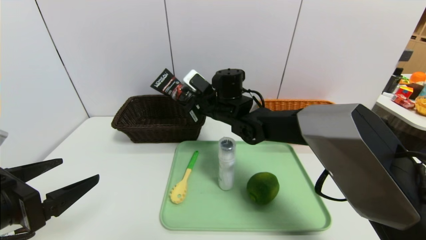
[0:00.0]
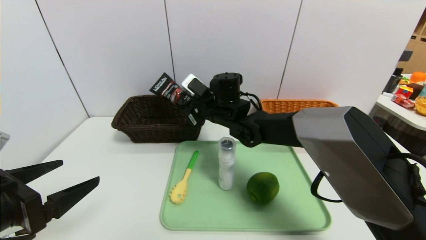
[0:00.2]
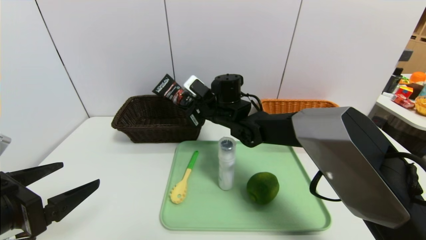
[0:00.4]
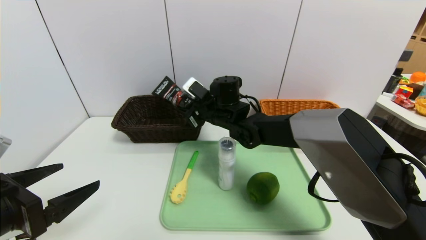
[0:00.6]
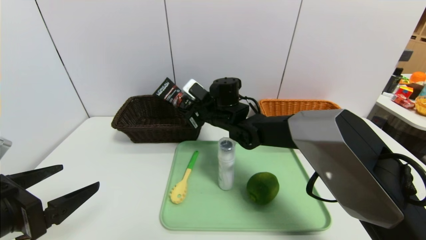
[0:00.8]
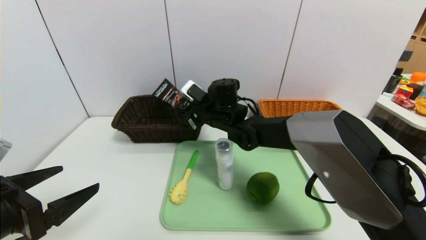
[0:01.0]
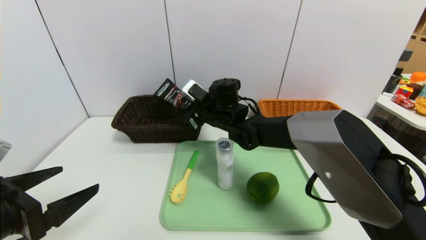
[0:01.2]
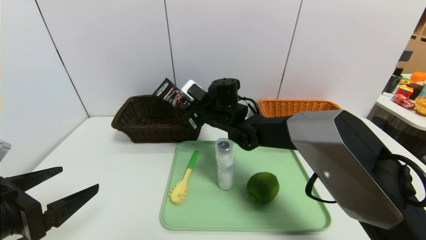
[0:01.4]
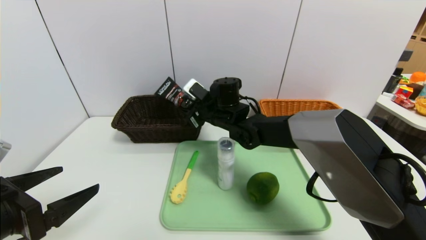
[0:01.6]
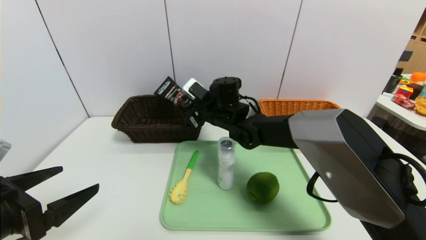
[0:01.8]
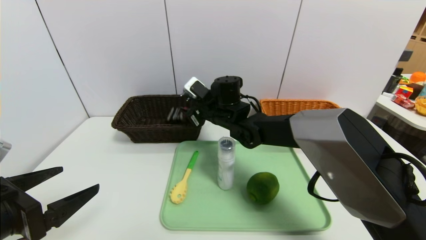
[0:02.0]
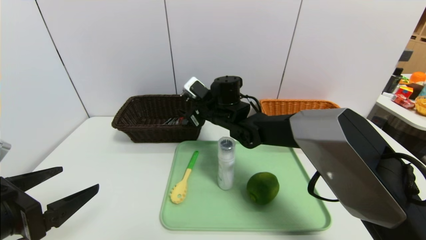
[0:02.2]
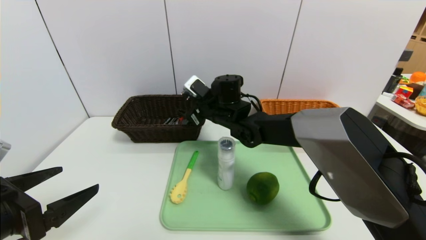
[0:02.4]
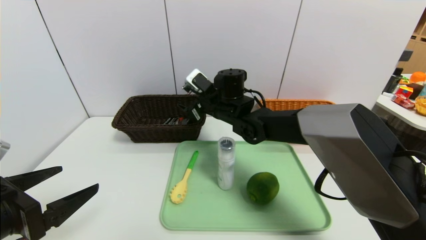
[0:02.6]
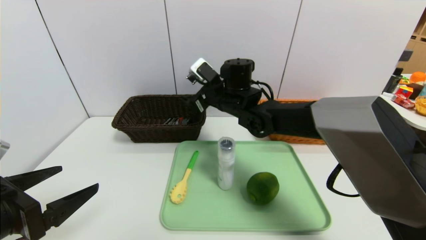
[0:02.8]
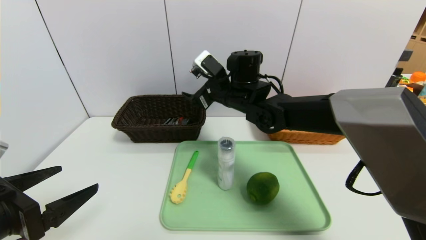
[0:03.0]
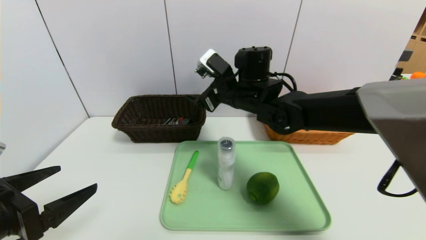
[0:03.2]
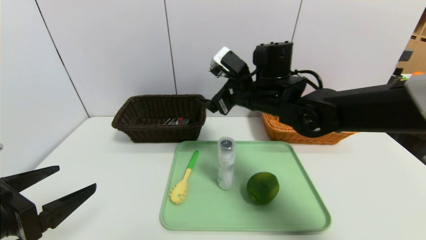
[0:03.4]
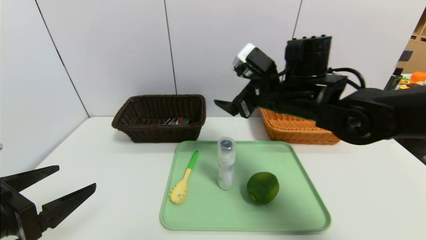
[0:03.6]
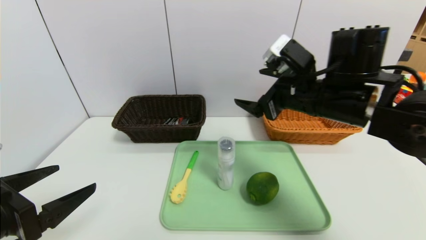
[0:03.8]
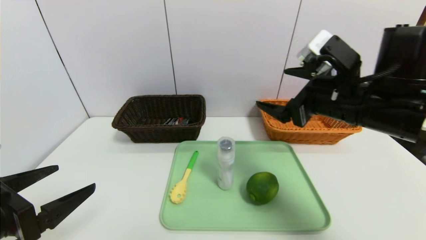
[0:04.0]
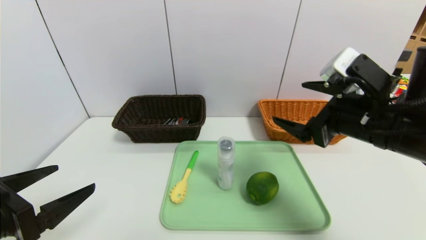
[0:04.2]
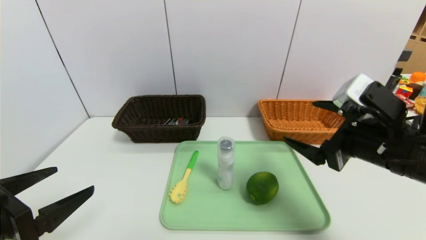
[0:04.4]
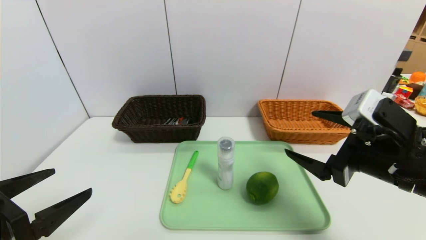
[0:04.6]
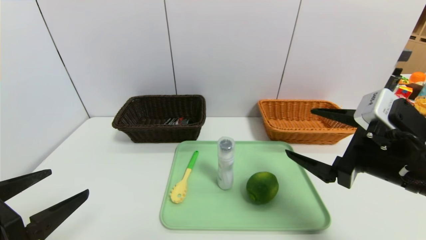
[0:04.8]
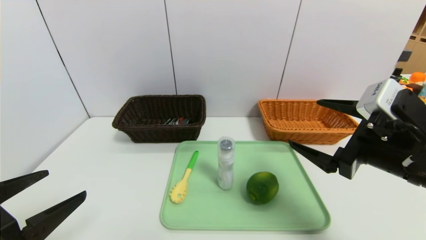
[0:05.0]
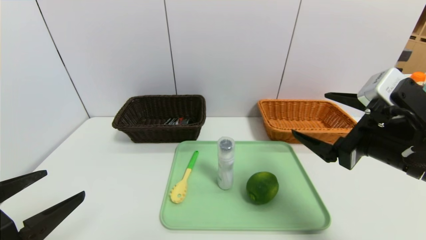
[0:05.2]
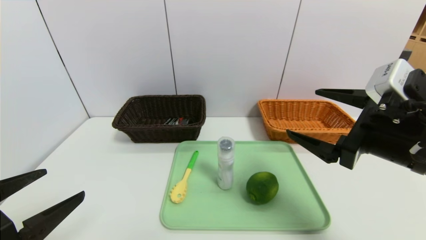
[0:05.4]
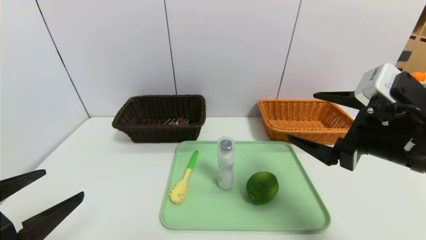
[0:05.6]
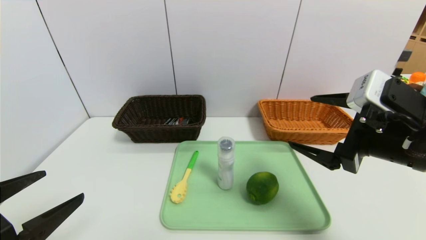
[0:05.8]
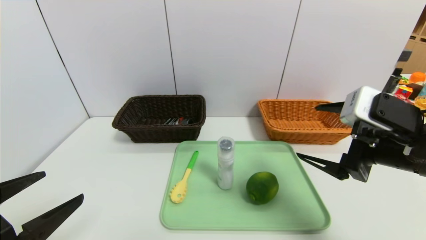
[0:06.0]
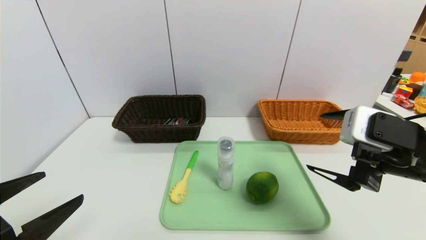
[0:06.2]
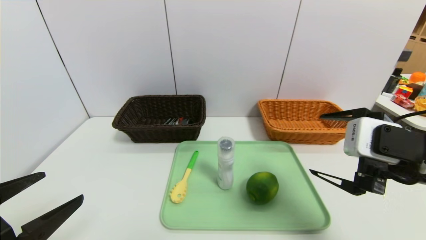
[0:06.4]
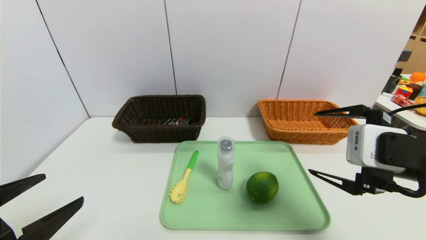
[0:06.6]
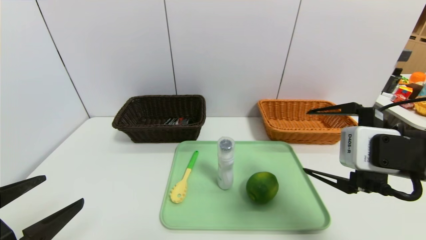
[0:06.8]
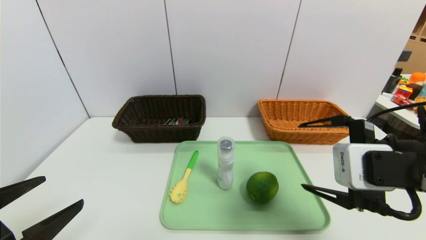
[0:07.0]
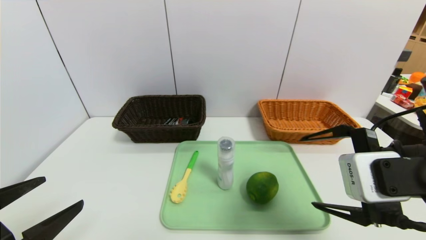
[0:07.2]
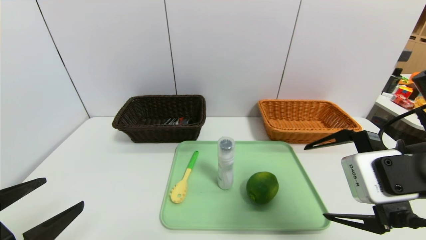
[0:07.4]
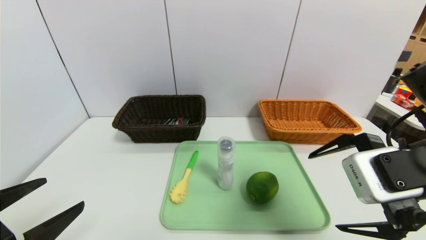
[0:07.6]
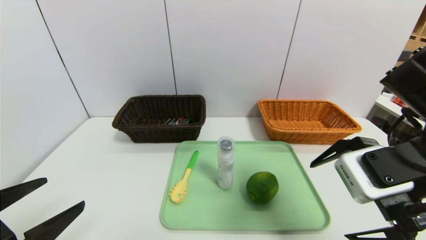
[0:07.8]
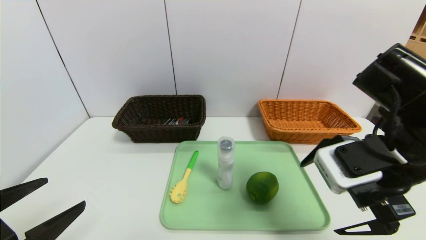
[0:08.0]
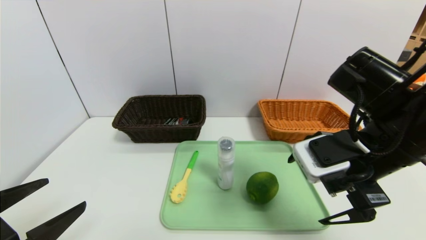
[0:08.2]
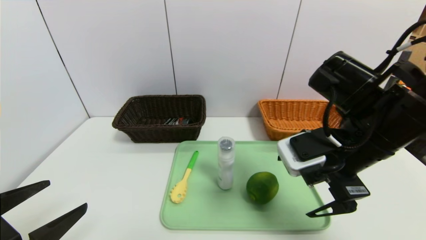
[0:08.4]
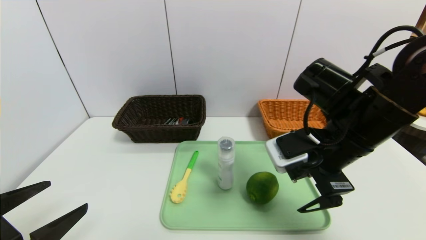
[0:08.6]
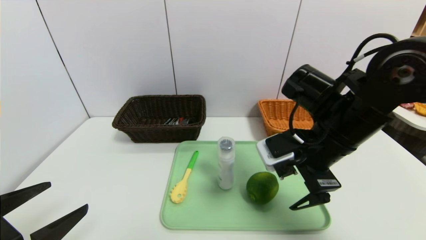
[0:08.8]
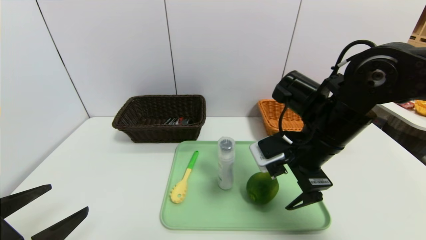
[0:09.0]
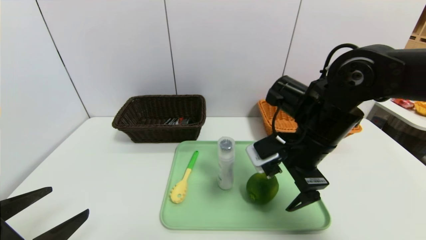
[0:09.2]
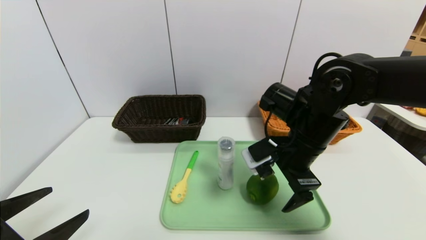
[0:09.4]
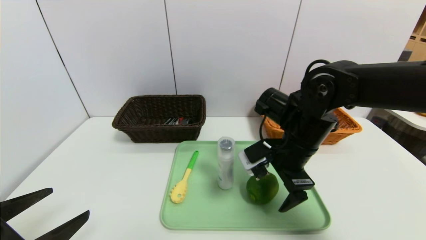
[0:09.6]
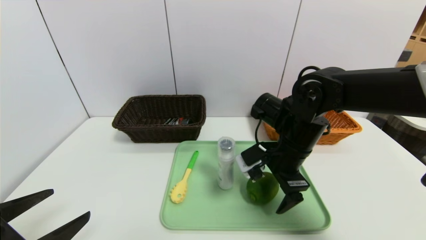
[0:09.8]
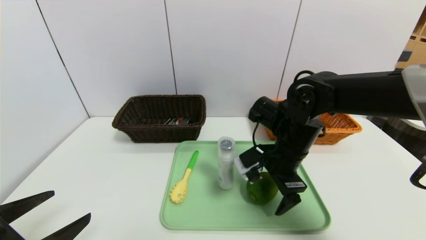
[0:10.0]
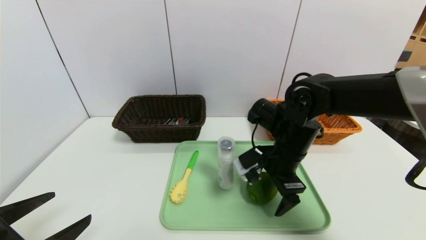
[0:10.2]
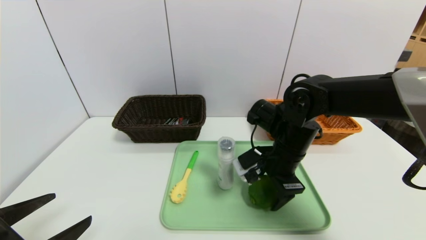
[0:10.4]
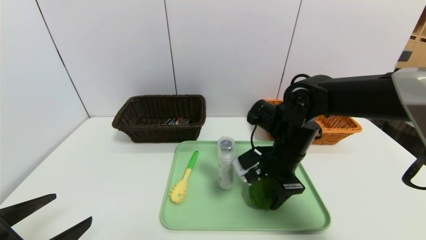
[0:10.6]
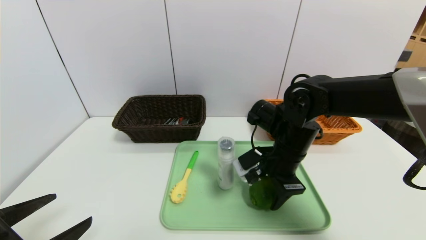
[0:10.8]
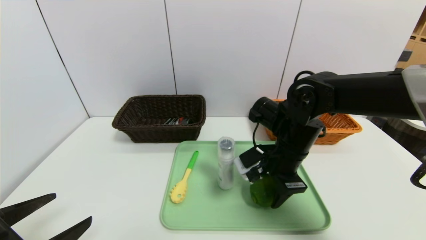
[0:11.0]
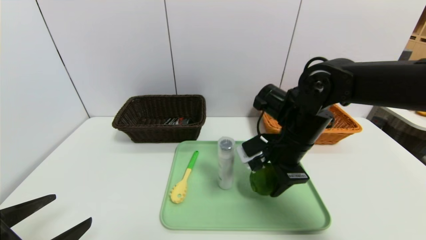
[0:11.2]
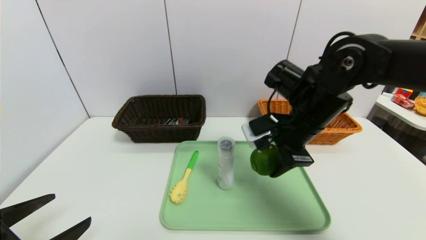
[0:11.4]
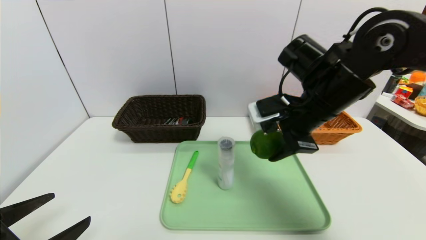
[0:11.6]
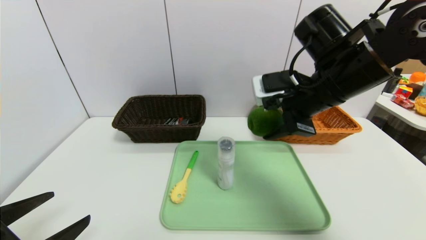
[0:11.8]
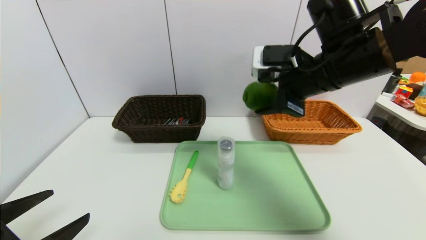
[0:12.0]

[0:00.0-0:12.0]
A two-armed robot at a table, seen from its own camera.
Task of the whole recording: place the food in the right basket with the right gripper, and place the non food items in the left basket with the left gripper.
0:00.0 to 0:01.6: The grippers stay close to where they were, moving slightly.
0:01.6 to 0:03.0: The right gripper moves upward, roughly 5 cm, and opens up.
0:03.0 to 0:04.4: The right gripper travels backward and to the right by approximately 30 cm.
0:04.4 to 0:06.0: The grippers stay close to where they were, moving slightly.
0:07.6 to 0:09.0: The right gripper shifts approximately 10 cm forward and to the left.
0:09.0 to 0:10.4: The right gripper heads downward, covering approximately 5 cm.
0:10.4 to 0:12.0: The right gripper moves upward, approximately 15 cm.

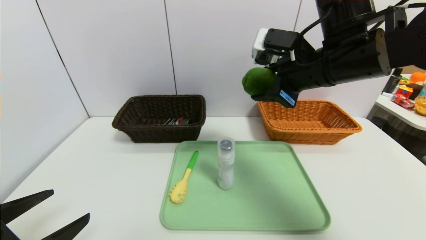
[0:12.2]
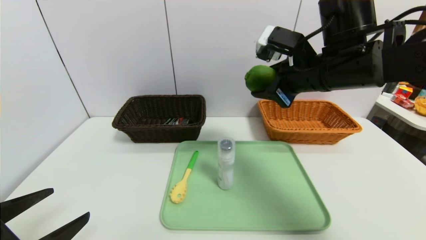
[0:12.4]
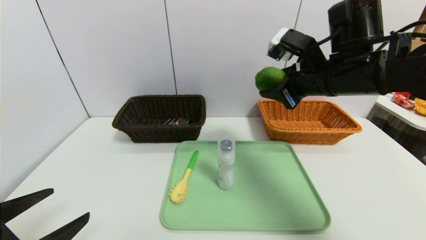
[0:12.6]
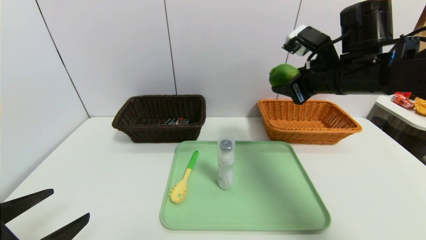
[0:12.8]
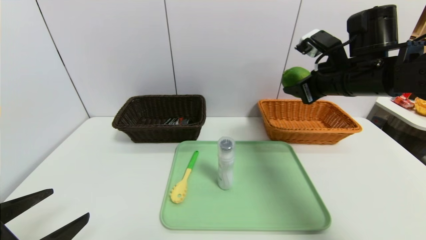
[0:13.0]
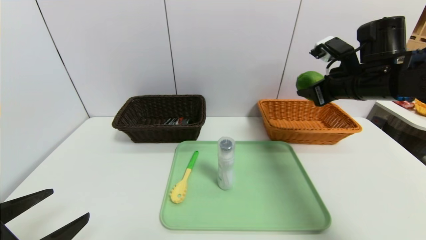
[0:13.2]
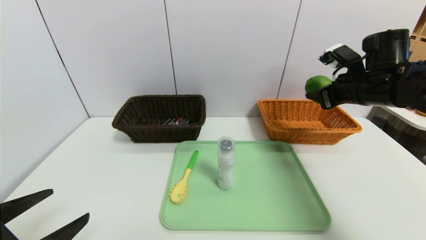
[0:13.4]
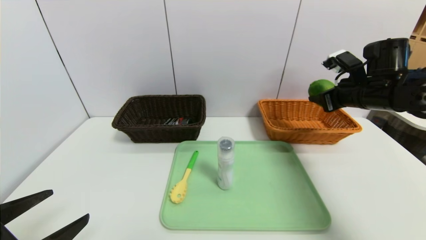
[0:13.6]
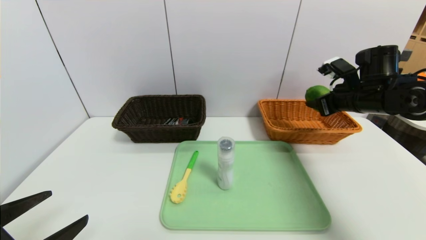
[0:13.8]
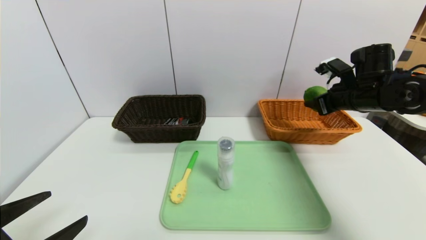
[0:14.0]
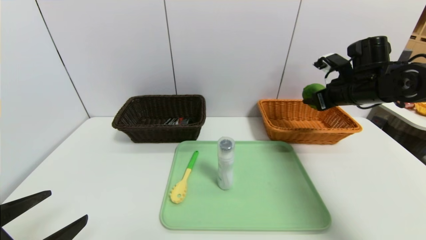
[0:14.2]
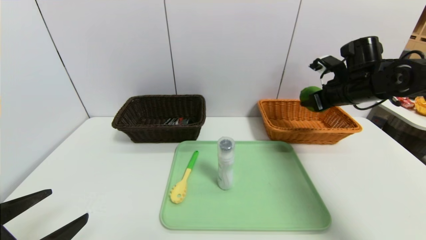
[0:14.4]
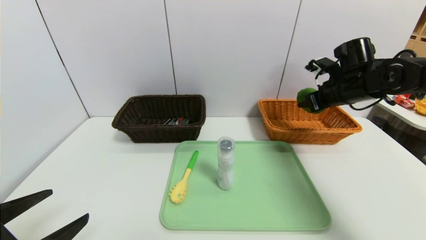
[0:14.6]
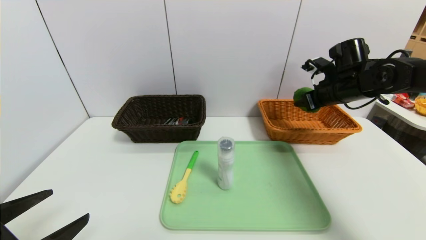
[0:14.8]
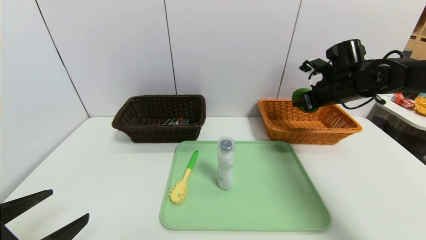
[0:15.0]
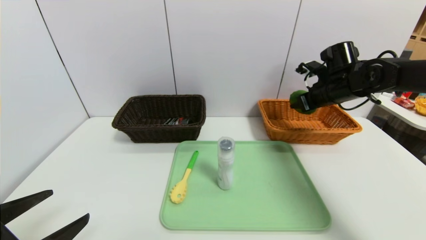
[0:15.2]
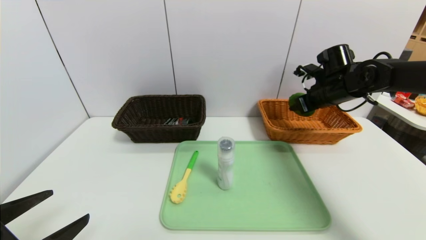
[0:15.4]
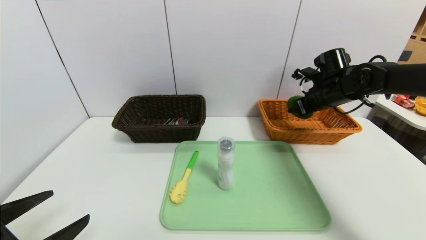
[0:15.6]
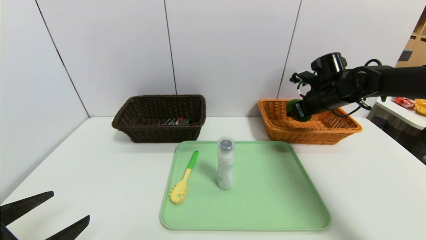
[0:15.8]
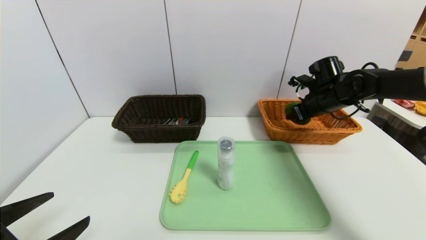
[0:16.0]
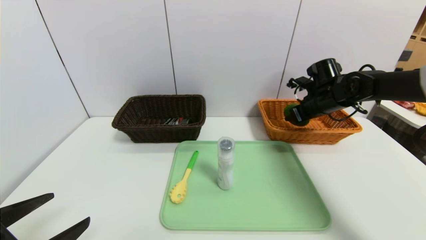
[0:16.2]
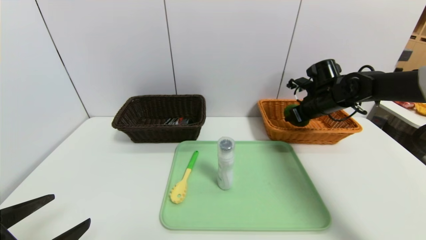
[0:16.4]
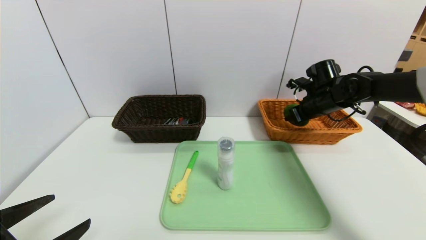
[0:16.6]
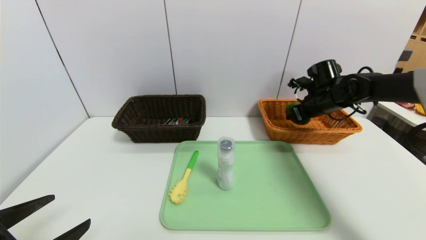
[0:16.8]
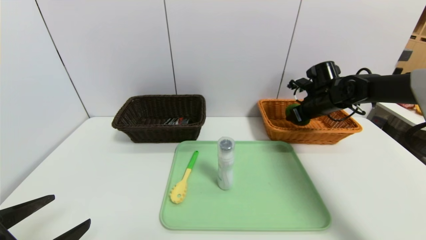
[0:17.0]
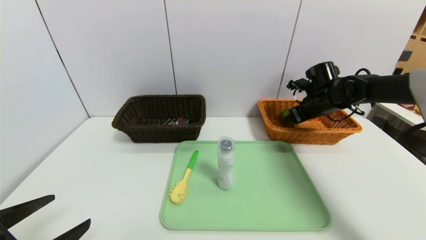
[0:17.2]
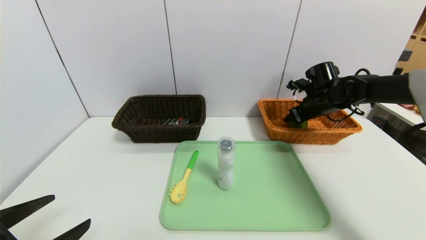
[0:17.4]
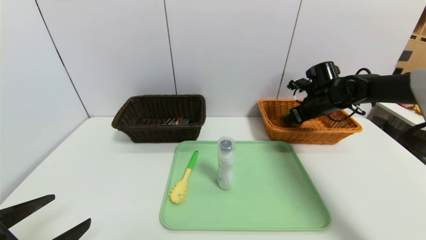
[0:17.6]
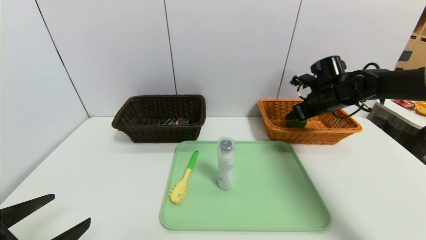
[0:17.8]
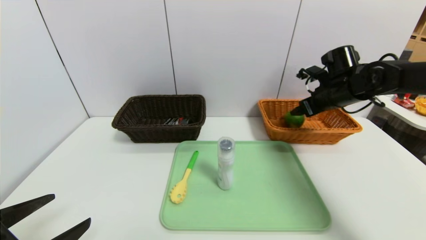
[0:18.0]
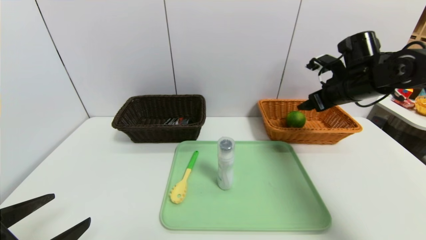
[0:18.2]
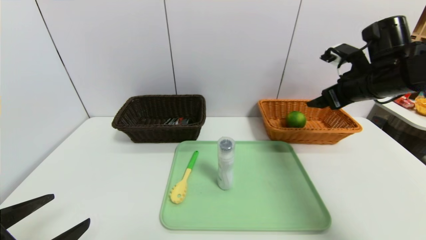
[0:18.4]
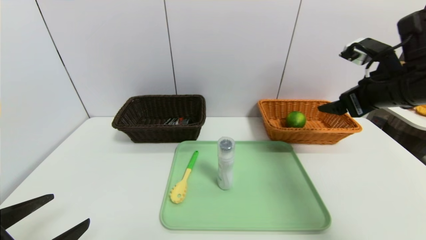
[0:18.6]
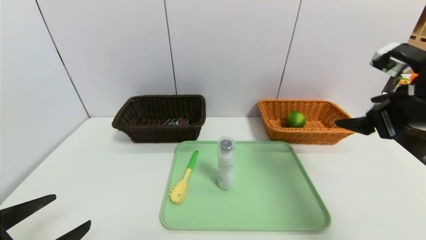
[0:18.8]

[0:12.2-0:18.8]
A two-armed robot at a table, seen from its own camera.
Task of the whole recording: place the food in the right basket with the right gripper, and place the non food items in the left basket with the left gripper.
Step, 0:12.2 to 0:18.4: Grasp the green lemon and put it in the right basket.
0:12.2 to 0:13.8: The right gripper moves to the right, downward and forward, some 20 cm.
0:13.8 to 0:15.4: The right gripper is displaced forward by roughly 5 cm.
0:15.4 to 0:17.2: There are only small adjustments of the grippers.
0:17.2 to 0:18.8: The right gripper travels backward and upward by some 25 cm.
